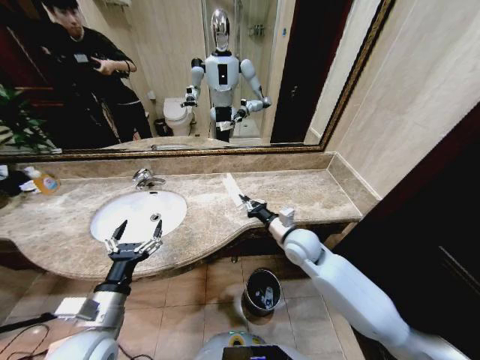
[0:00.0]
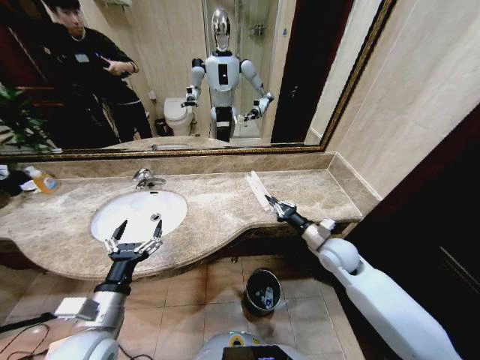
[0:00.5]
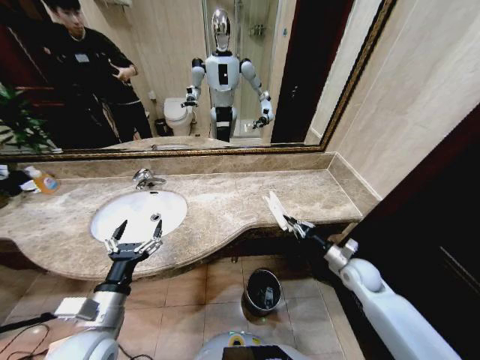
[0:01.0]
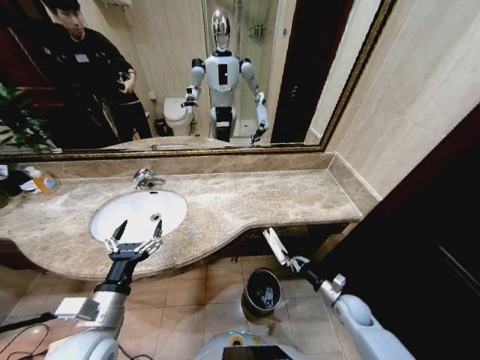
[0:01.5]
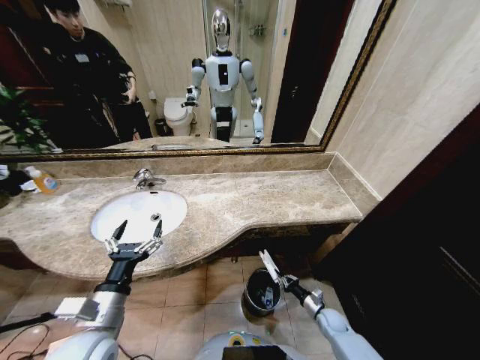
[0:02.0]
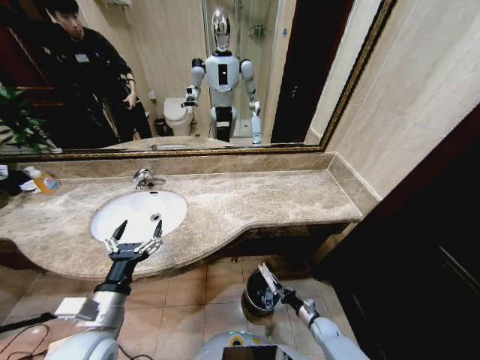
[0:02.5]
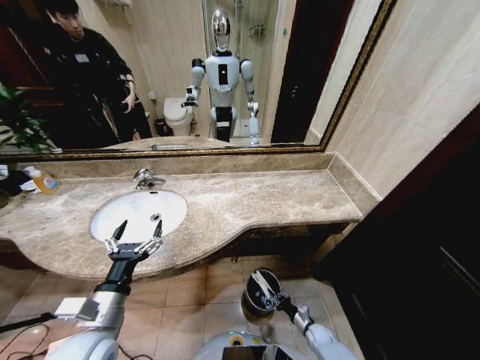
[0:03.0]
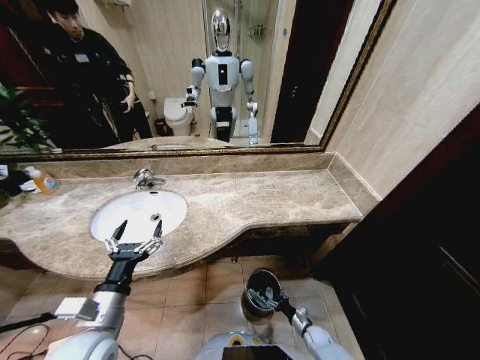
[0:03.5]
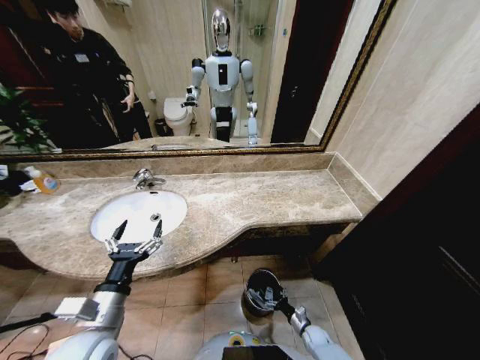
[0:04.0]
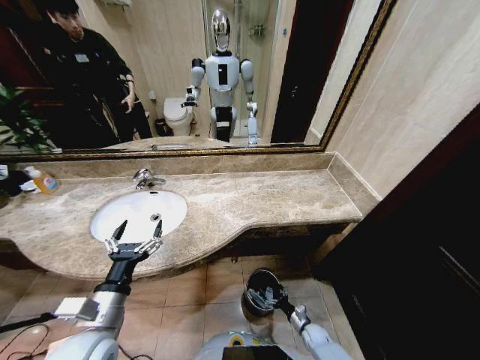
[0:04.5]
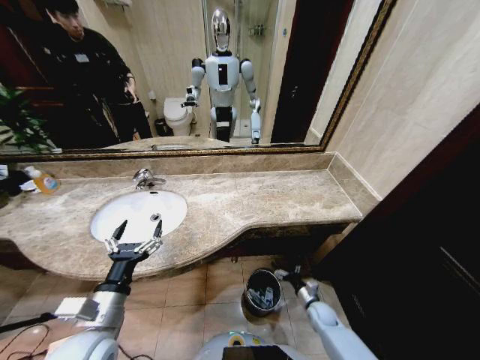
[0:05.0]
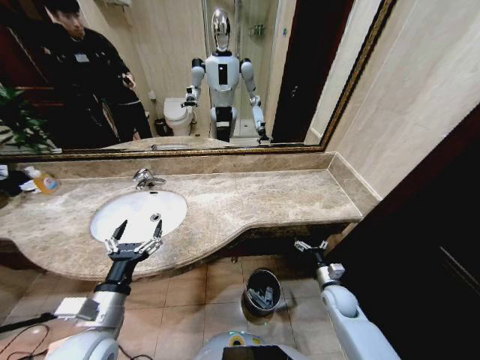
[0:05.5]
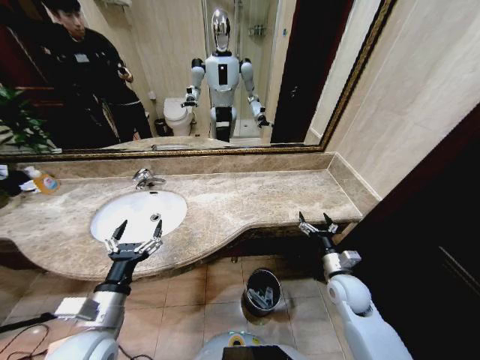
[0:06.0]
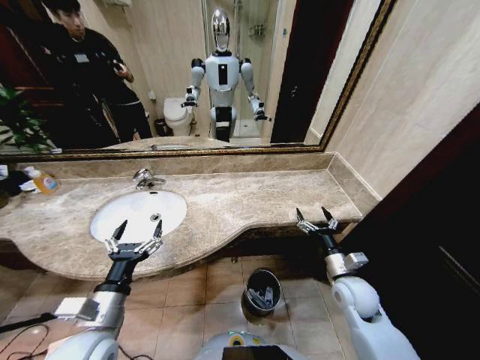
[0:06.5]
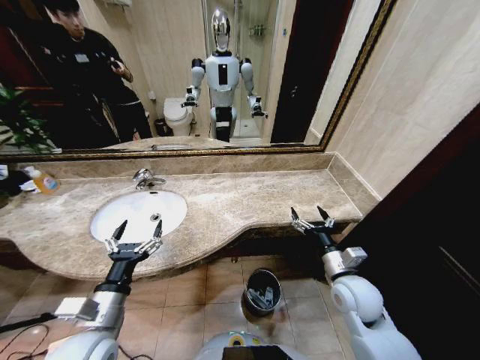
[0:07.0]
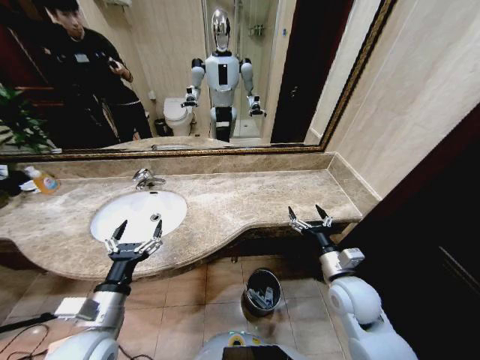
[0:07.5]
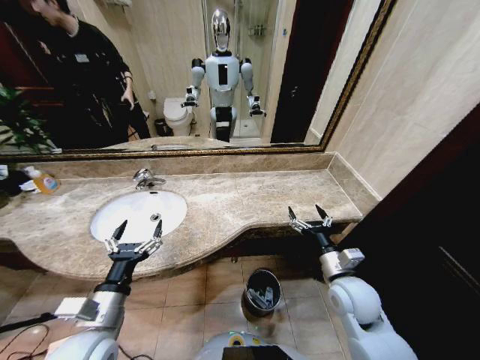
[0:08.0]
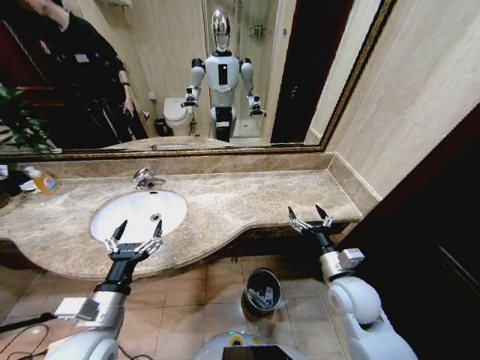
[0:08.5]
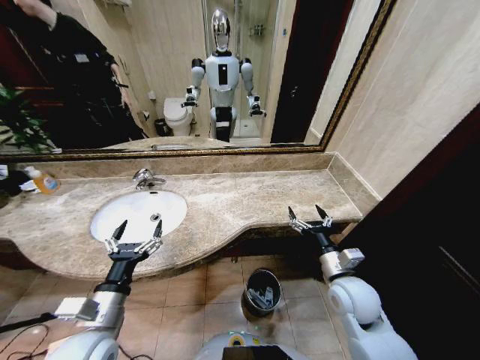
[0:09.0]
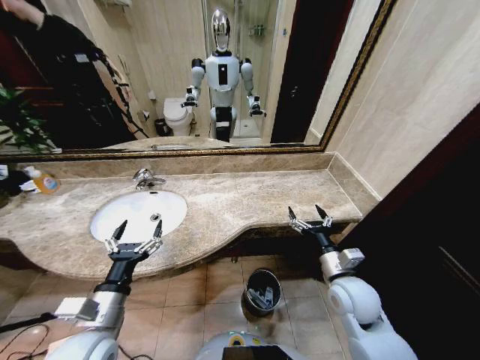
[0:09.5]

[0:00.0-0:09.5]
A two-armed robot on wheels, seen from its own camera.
Task of the whole recording: Pick up the trash from the sink and place it in the trash bin.
0:00.0 to 0:02.0: The right gripper moves downward and to the right, some 40 cm.
0:02.0 to 0:04.0: The right gripper shifts roughly 5 cm downward, and opens up.
0:04.0 to 0:05.5: The right gripper goes roughly 20 cm upward.
0:05.5 to 0:07.5: The right gripper is displaced upward by approximately 20 cm.
0:07.5 to 0:09.5: Both grippers stay about where they are.

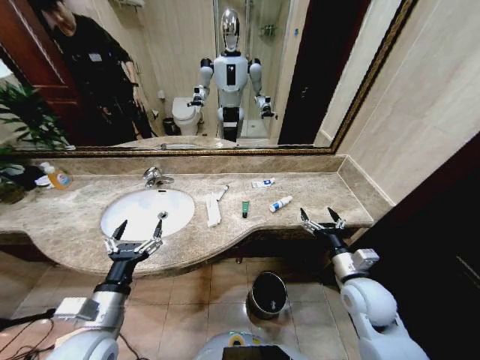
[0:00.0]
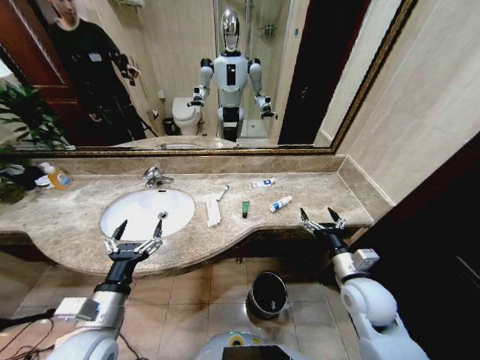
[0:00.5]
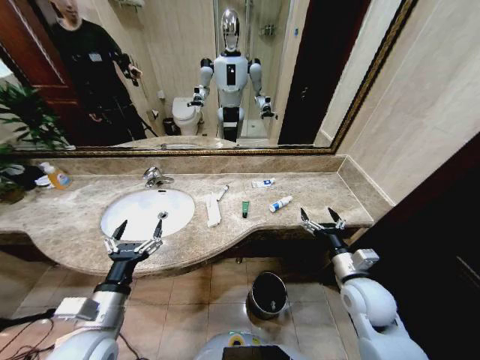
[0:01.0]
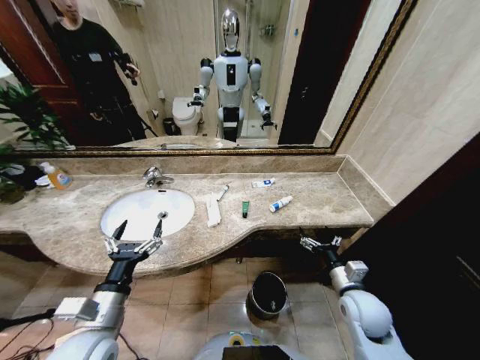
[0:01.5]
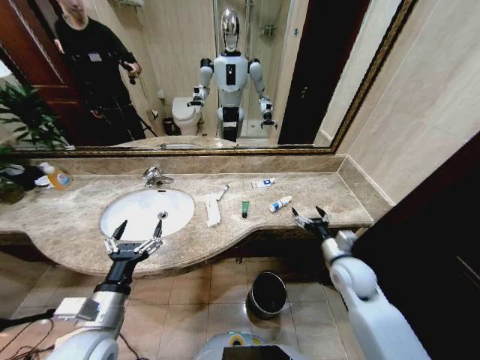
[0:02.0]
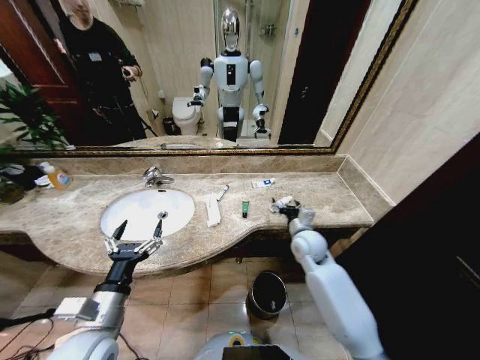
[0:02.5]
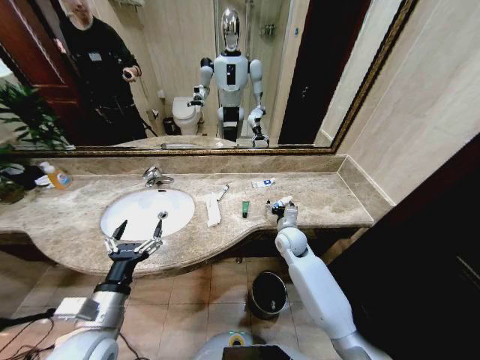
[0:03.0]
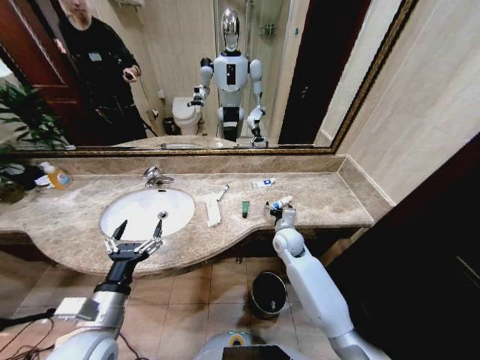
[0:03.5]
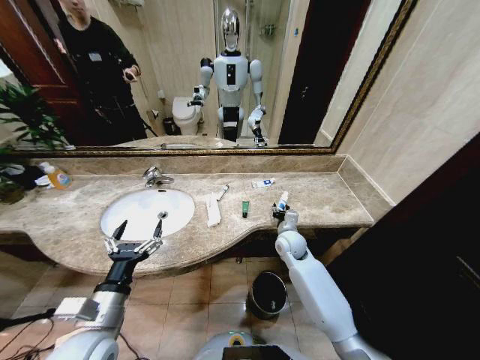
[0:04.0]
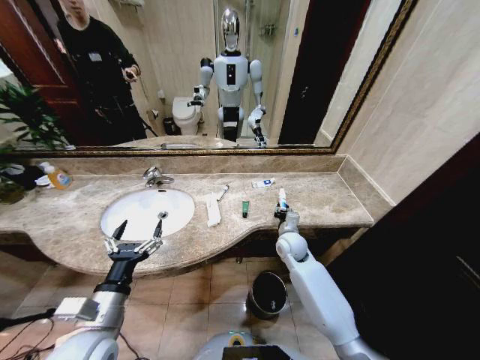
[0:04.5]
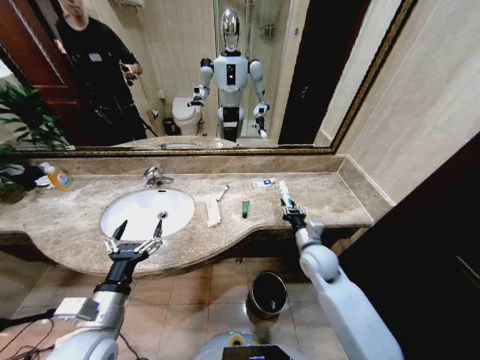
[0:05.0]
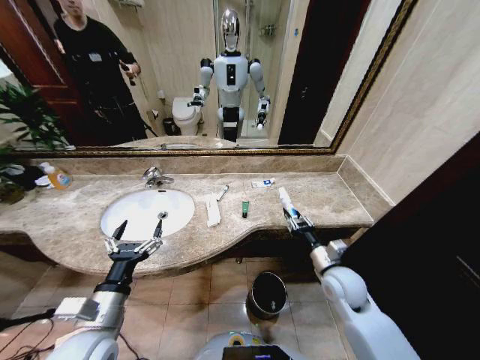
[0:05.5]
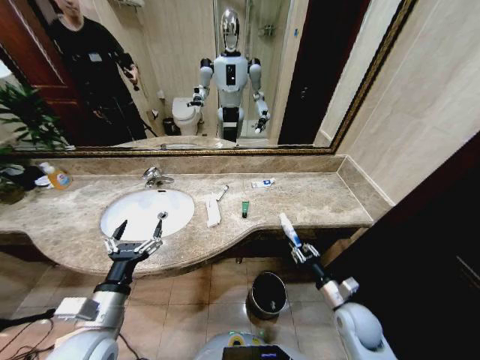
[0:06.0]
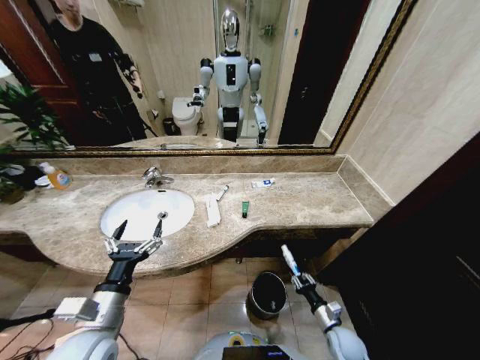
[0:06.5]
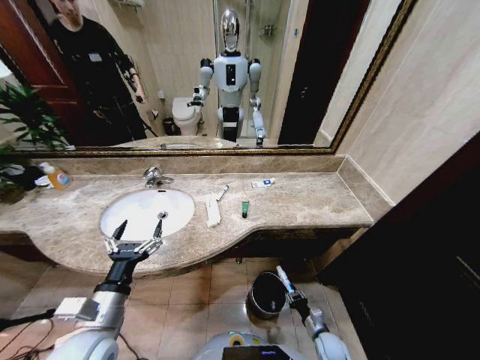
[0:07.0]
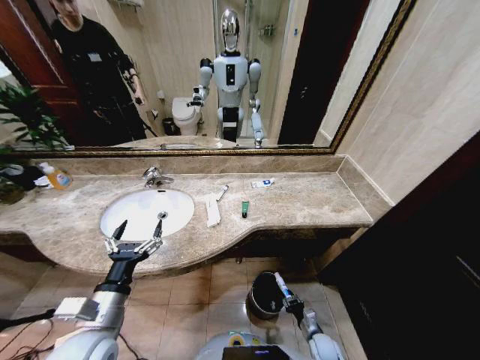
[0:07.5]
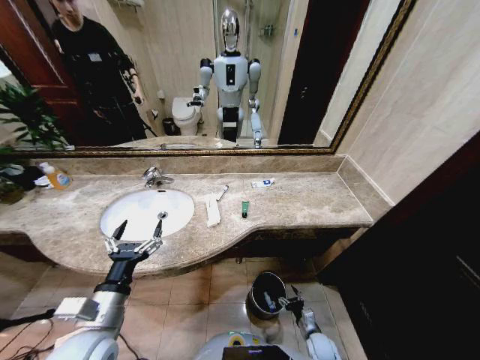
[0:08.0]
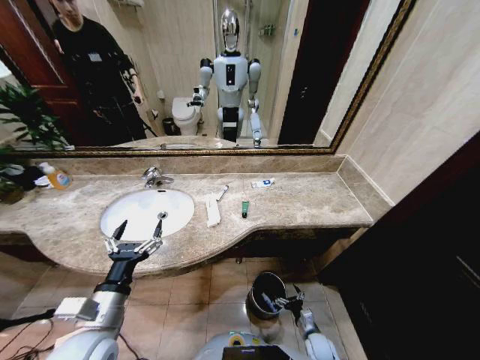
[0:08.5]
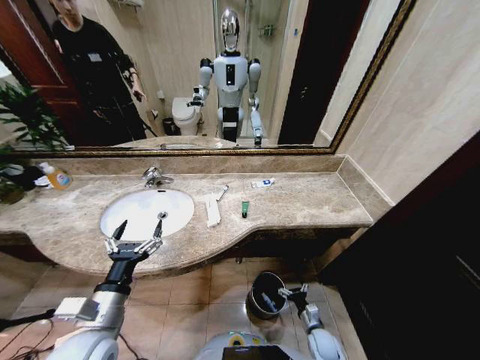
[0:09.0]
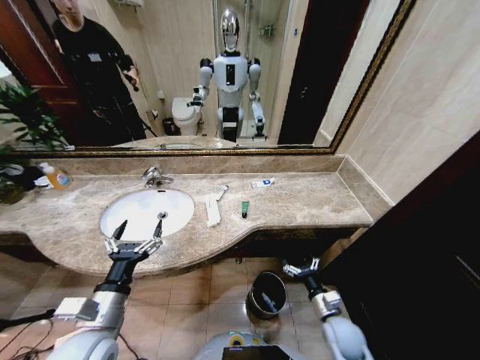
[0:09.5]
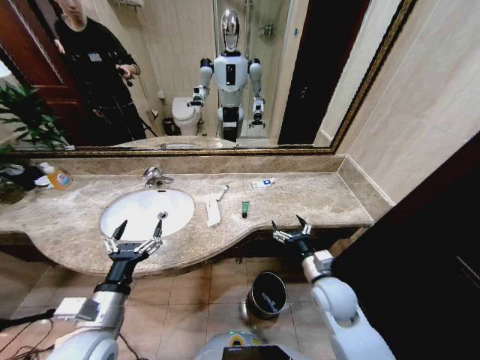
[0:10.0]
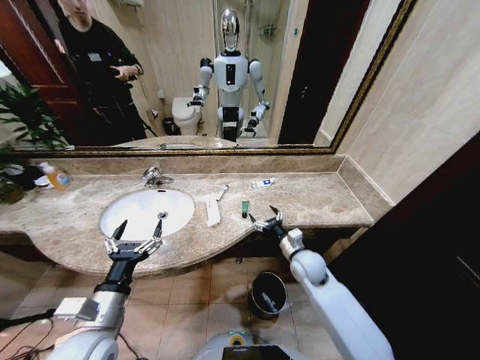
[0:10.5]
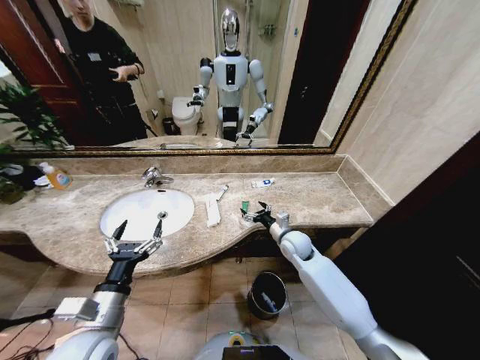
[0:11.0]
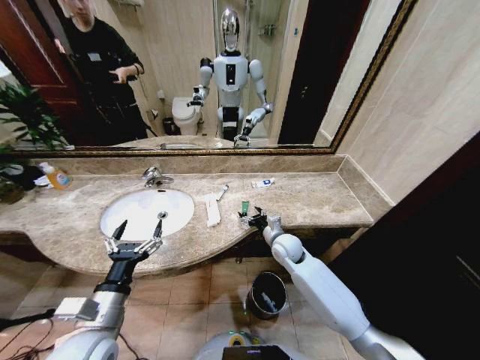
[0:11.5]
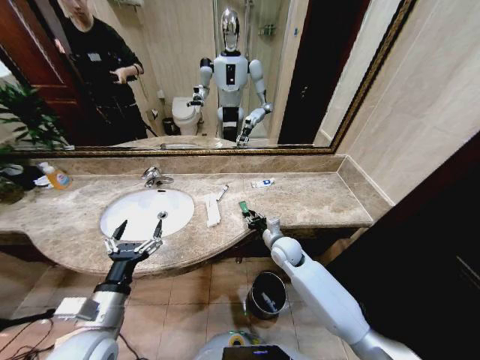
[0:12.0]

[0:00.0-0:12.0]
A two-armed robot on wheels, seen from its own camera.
Task of the whole recording: Pick up the trash from the sink and place it in the trash bin.
0:02.0 to 0:04.0: The right gripper heads forward and to the left, covering approximately 20 cm, and closes its fingers.
0:04.0 to 0:06.0: The right gripper heads backward and to the right, covering approximately 25 cm.
0:06.0 to 0:08.0: The right gripper is displaced downward by about 25 cm, and opens up.
0:08.0 to 0:10.0: The right gripper shifts approximately 30 cm upward.
0:10.0 to 0:12.0: The right gripper heads forward and to the left, covering some 15 cm, and closes.

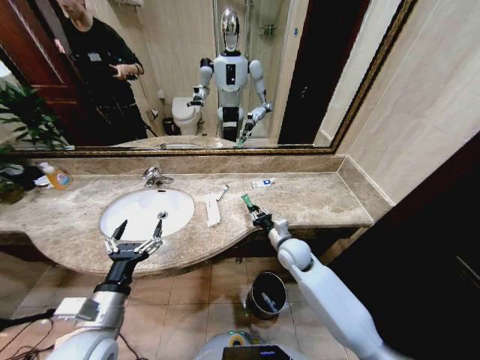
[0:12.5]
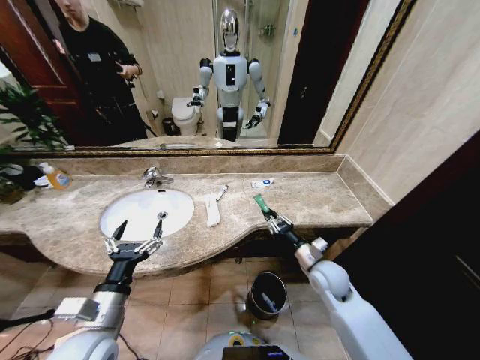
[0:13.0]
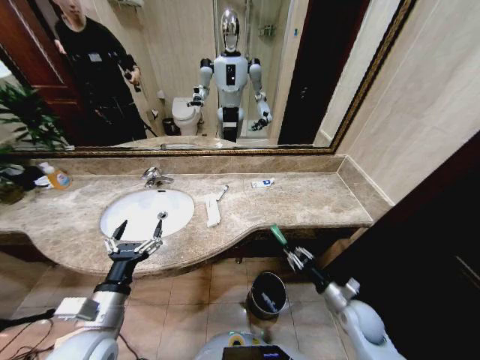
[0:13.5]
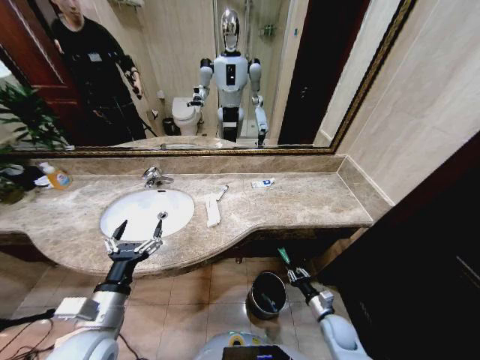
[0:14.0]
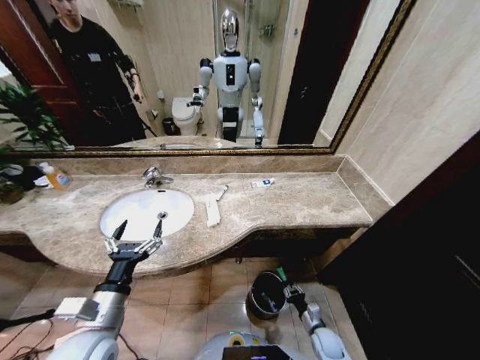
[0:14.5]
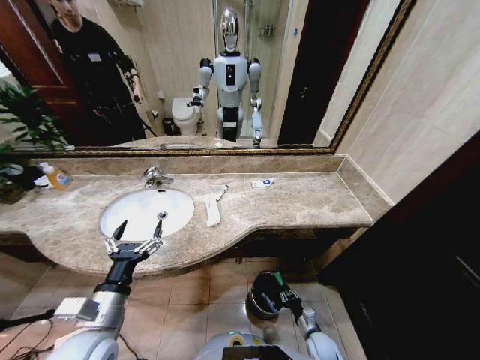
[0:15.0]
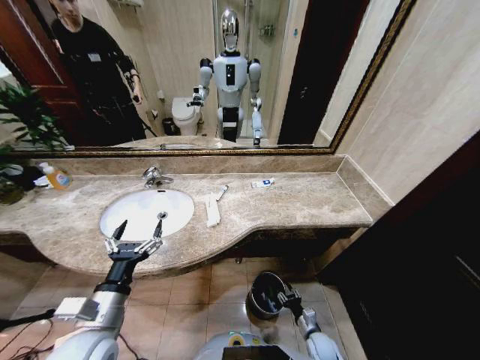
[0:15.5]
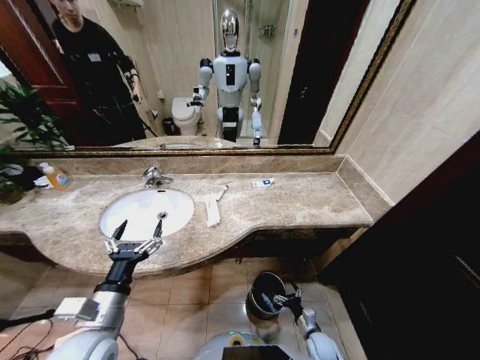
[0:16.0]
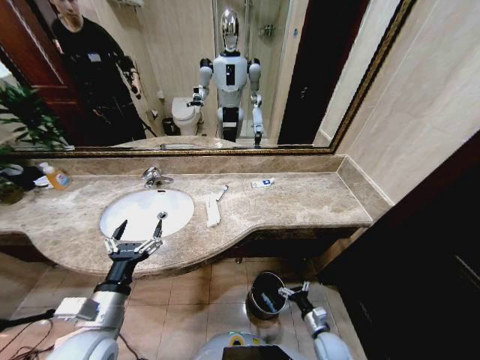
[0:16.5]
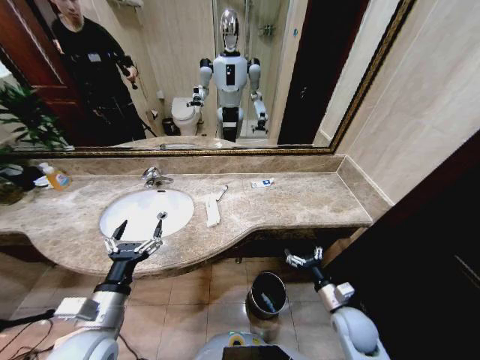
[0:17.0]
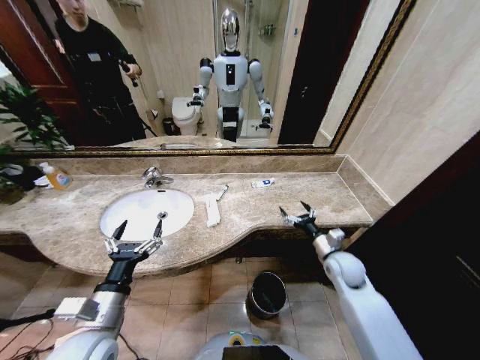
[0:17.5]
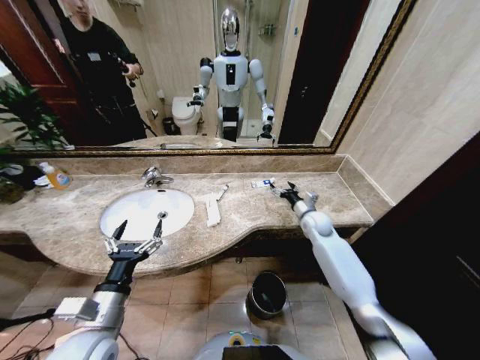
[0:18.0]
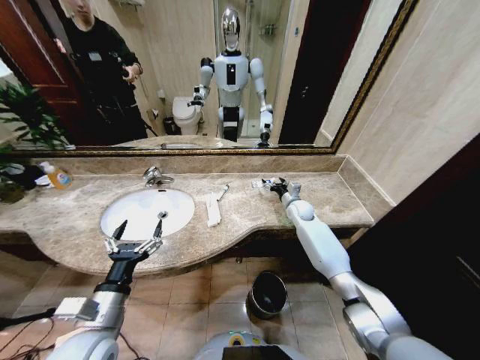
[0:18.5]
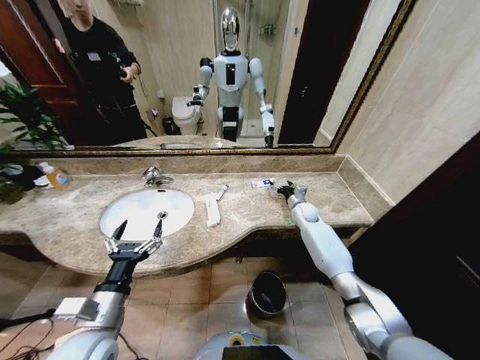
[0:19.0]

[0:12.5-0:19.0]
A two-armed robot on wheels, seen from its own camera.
Task of the whole recording: Pick up the trash from the sink and place it in the trash bin.
0:12.5 to 0:14.5: The right gripper travels downward, backward and to the right by approximately 35 cm.
0:14.5 to 0:17.0: The right gripper goes about 20 cm upward, and opens up.
0:17.0 to 0:19.0: The right gripper heads forward, covering approximately 35 cm.
